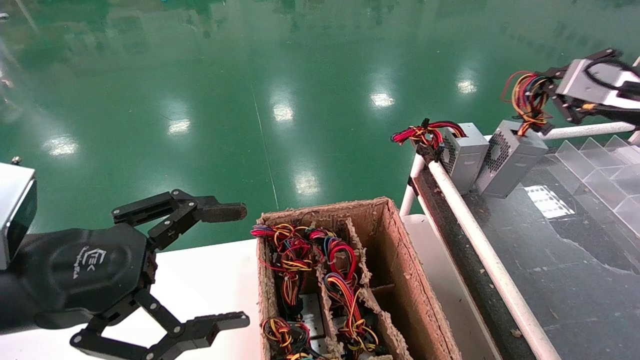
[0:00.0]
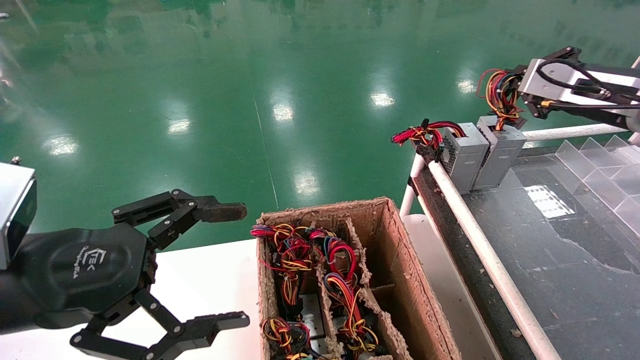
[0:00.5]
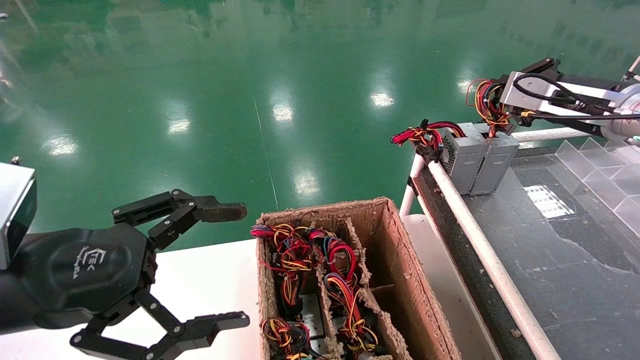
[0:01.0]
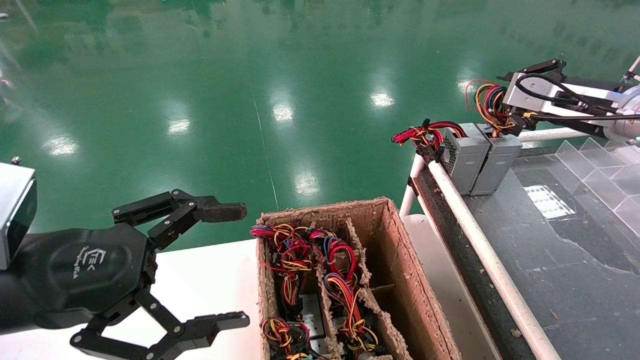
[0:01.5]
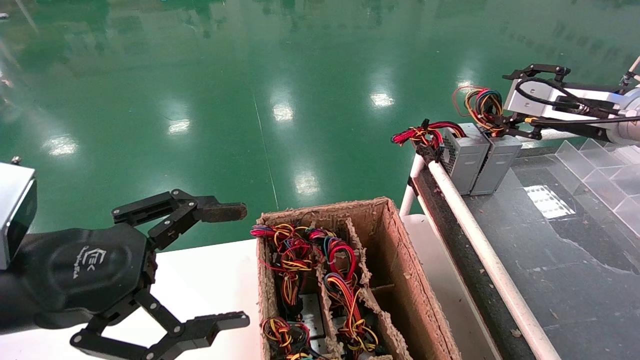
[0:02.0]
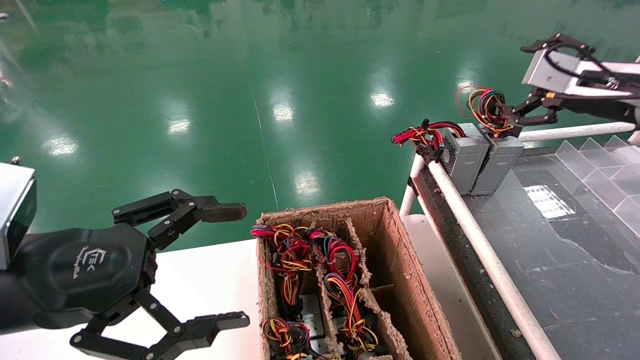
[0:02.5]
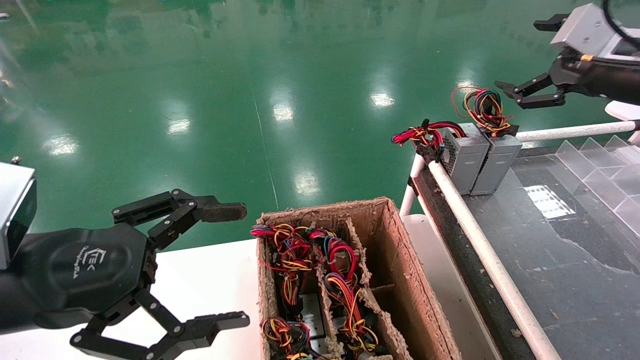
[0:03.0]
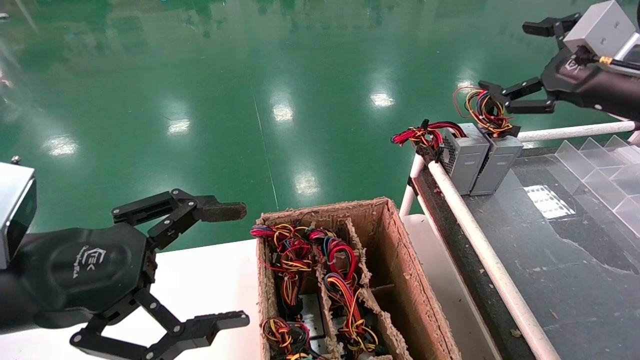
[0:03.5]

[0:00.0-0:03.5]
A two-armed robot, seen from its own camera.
0:00.0 to 0:02.0: The right gripper shifts by about 5 cm, and opens.
0:02.0 to 0:03.5: The right gripper is displaced backward by about 5 cm, and opens up.
